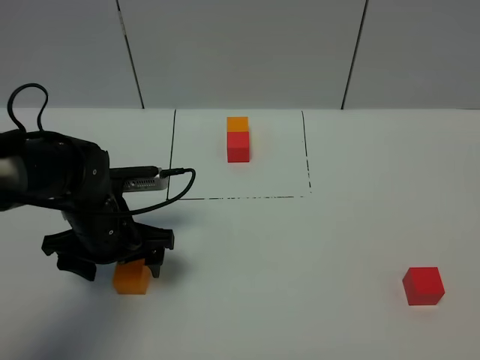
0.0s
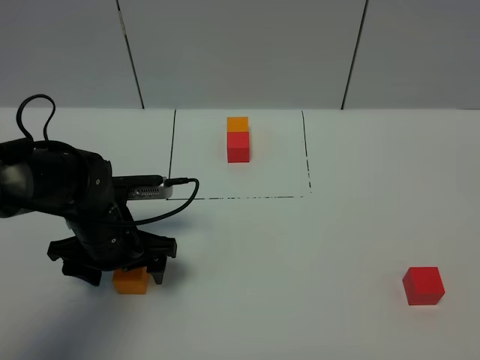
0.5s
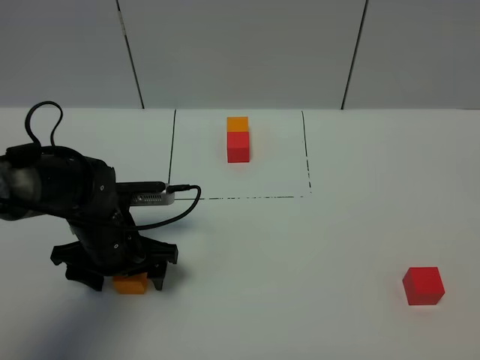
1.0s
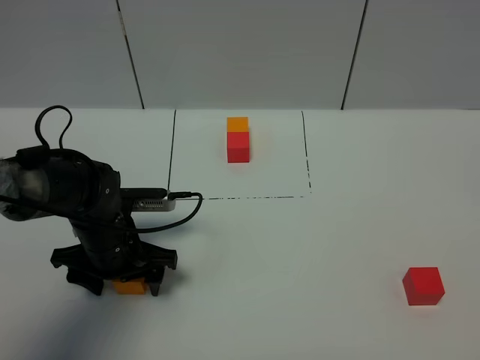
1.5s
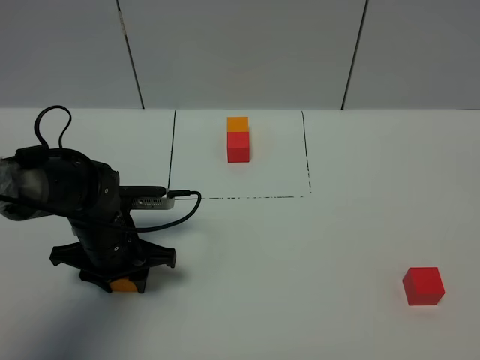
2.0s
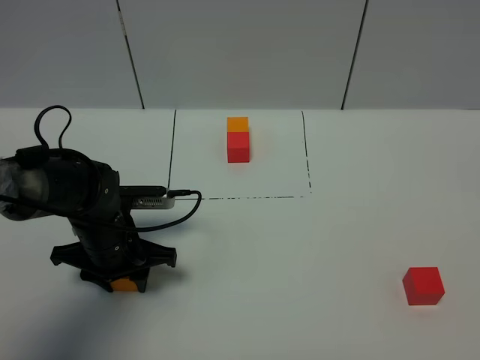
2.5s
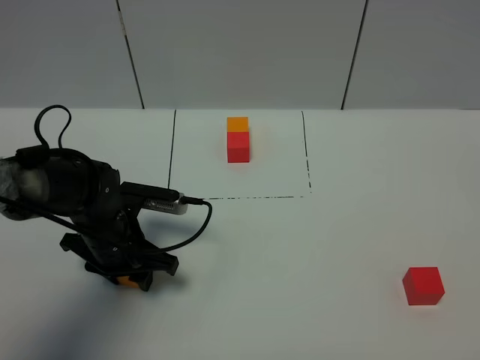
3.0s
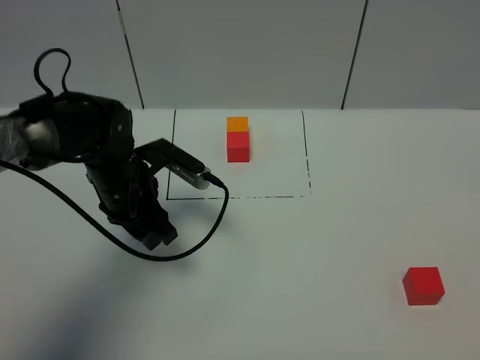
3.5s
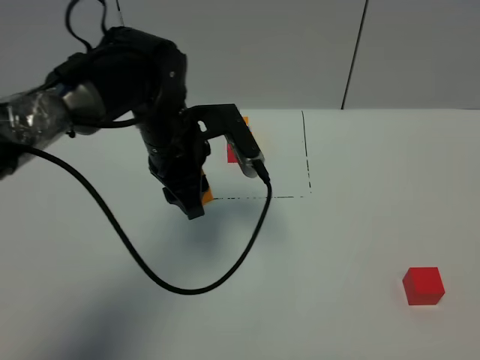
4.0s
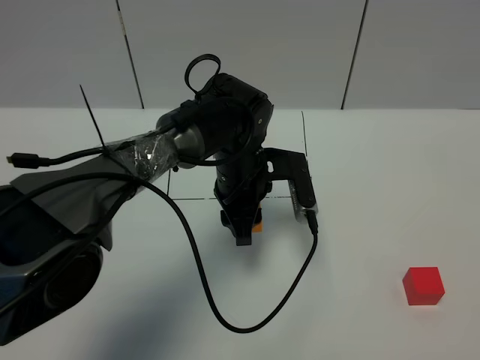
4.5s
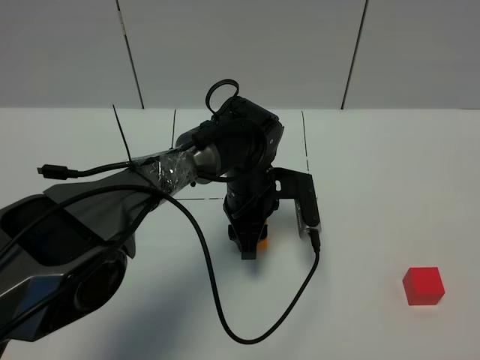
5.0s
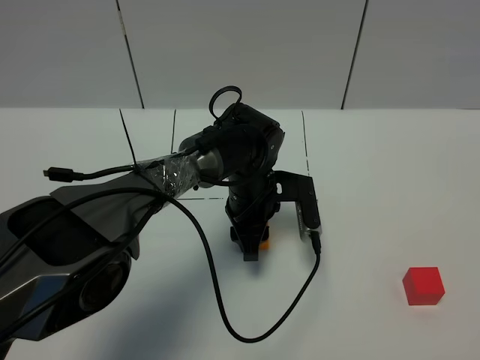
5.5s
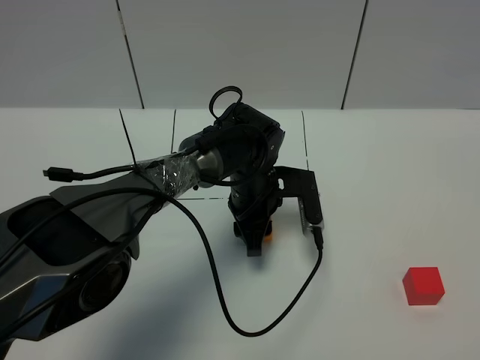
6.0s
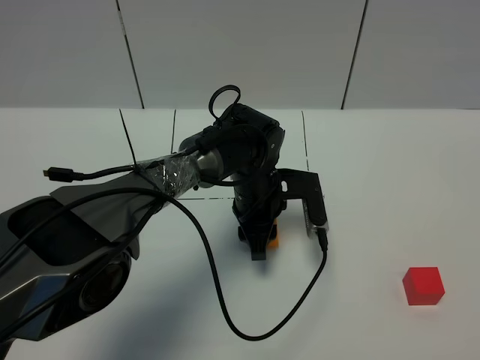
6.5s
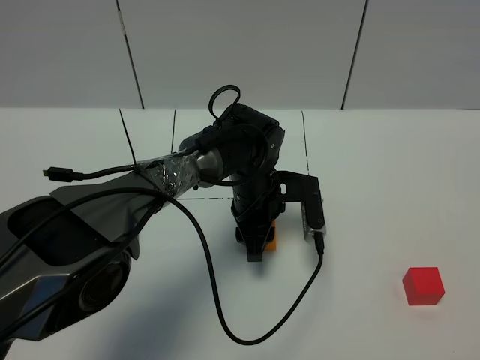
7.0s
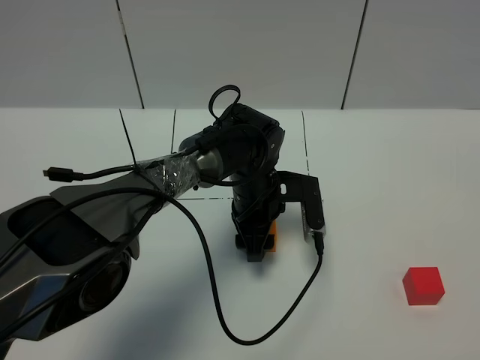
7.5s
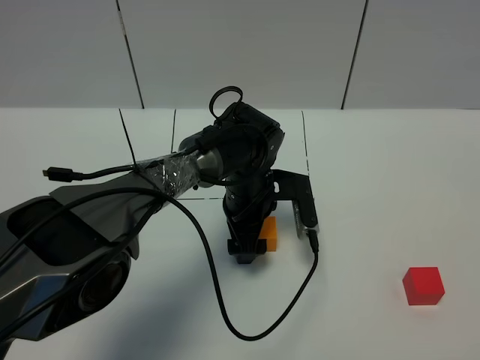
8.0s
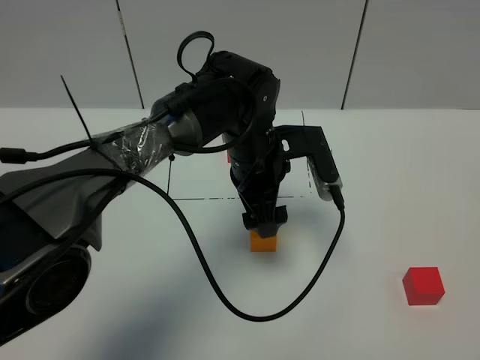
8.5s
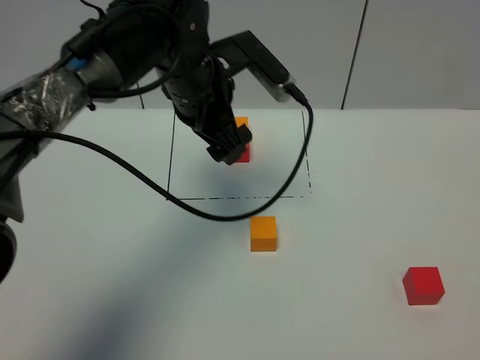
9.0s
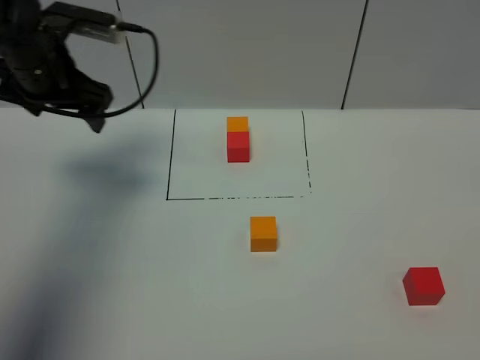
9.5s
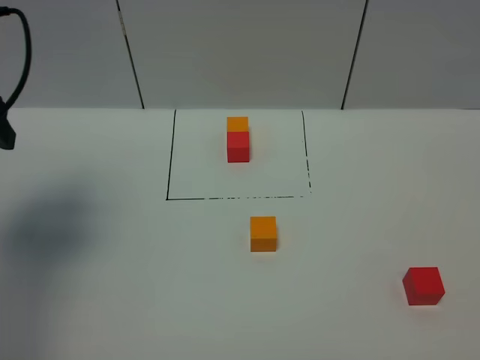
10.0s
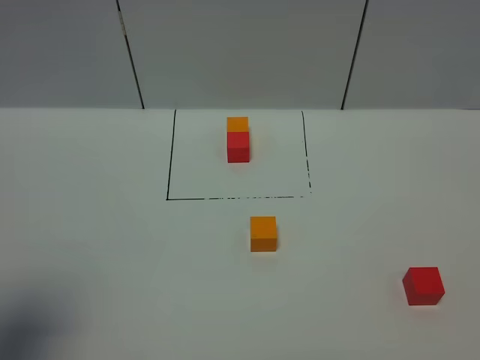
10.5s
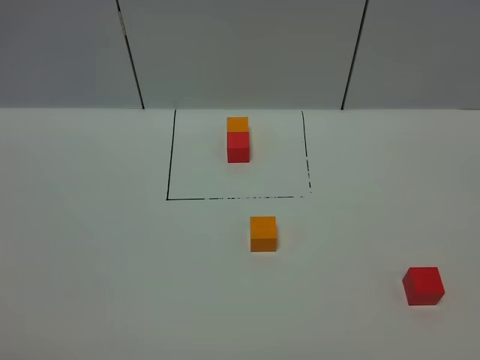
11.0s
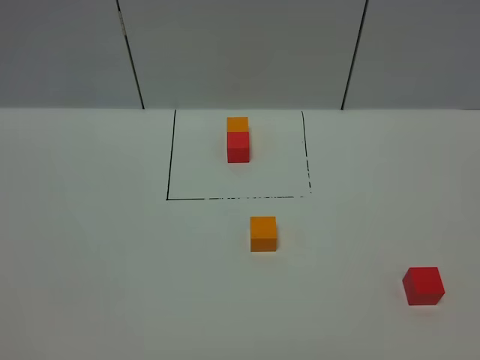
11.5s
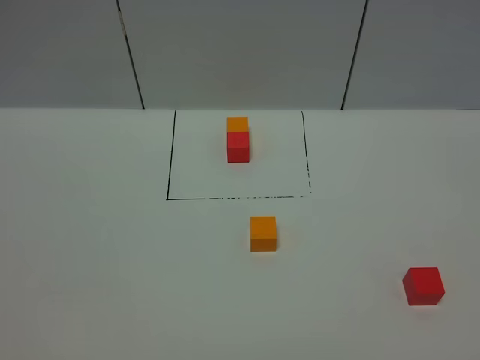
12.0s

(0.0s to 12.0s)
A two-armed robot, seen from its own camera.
Task of the whole recording: According to the building block template in front, assemble the scattered blocks together.
Step, 0.0s - 8.5s: Put the orange cube in the center of the table.
0.0s - 2.0s: The left gripper closes up.
2.0s - 4.0s: The left gripper goes about 15 cm upward, to the right and forward.
4.0s - 6.0s: The left gripper shifts some 15 cm downward and to the right.
6.0s - 8.0s: The left gripper opens up.
8.0s - 10.0s: The left gripper travels to the left and upward by roughly 40 cm.
10.0s - 12.0s: The left gripper shifts roughly 30 cm backward.

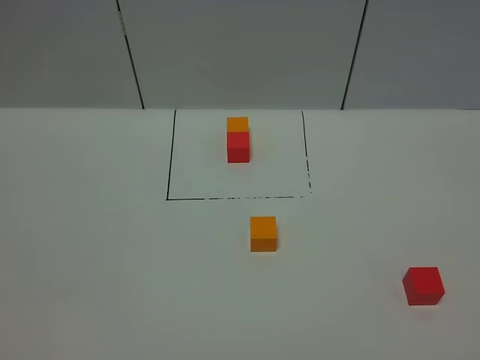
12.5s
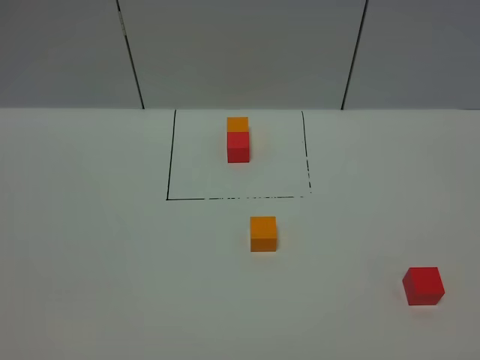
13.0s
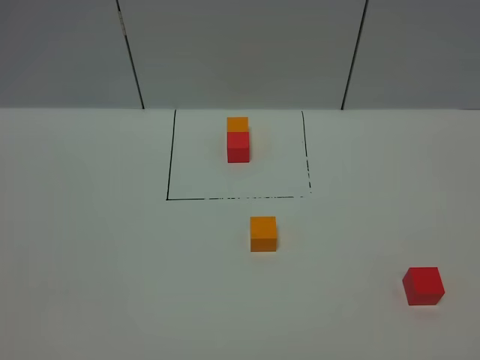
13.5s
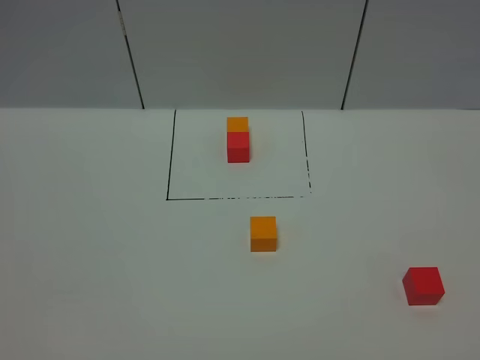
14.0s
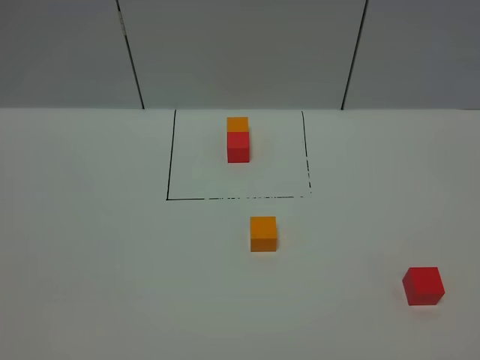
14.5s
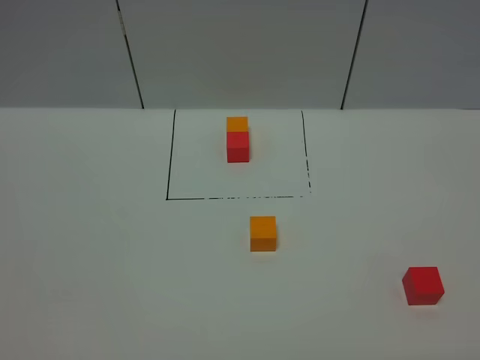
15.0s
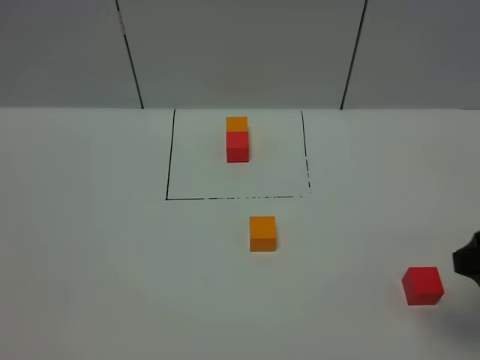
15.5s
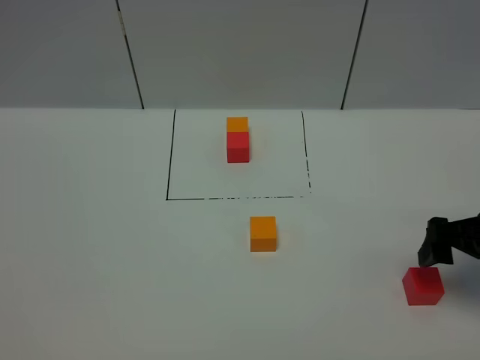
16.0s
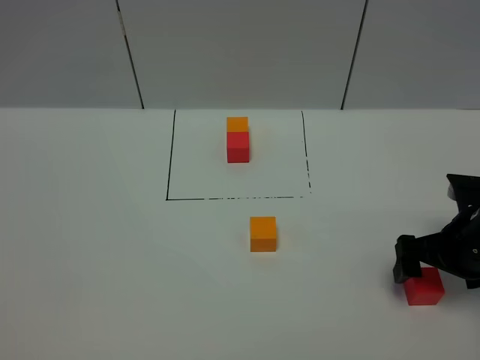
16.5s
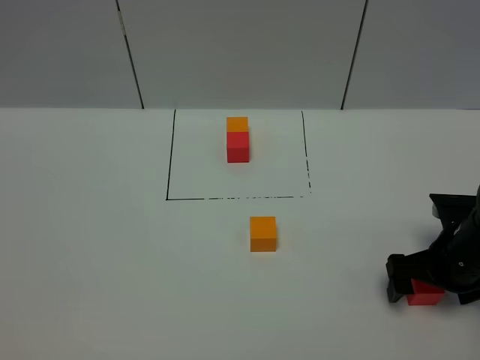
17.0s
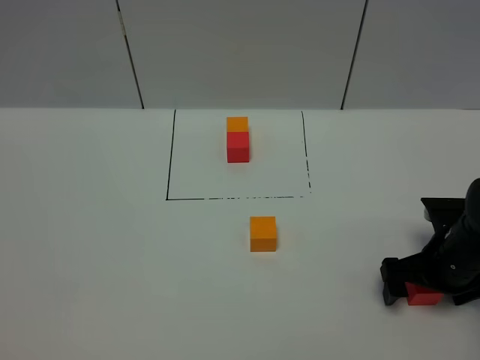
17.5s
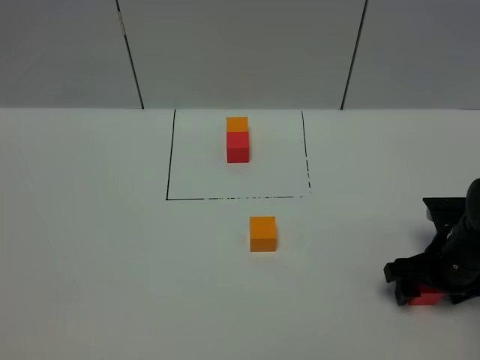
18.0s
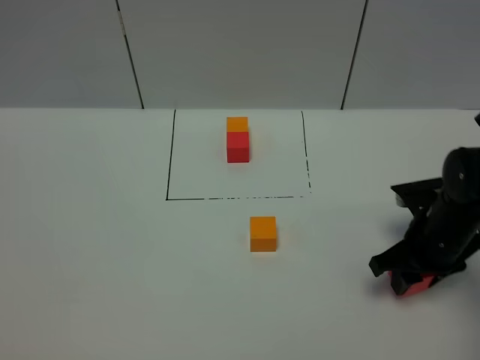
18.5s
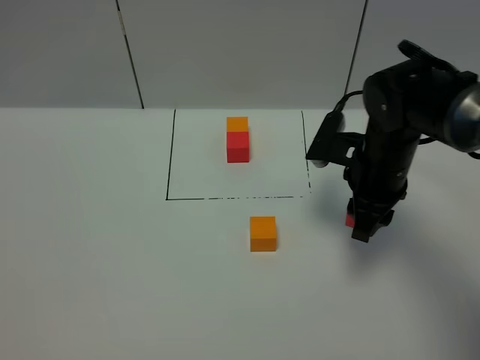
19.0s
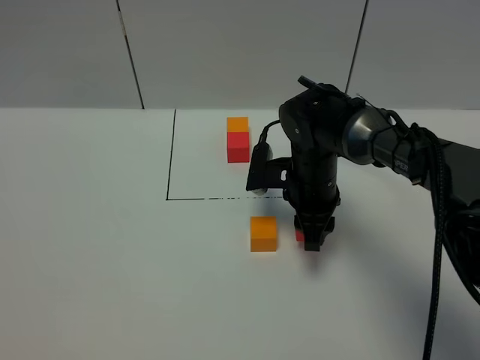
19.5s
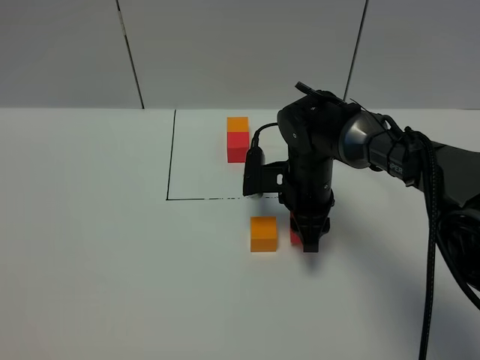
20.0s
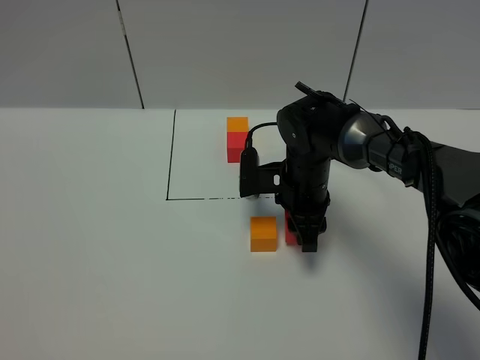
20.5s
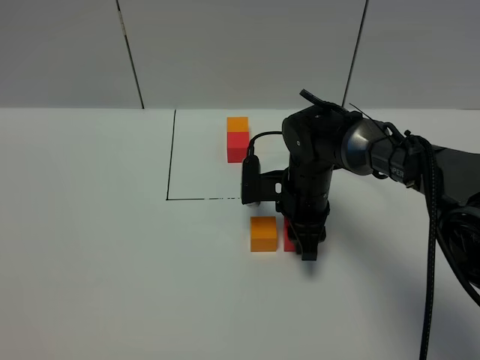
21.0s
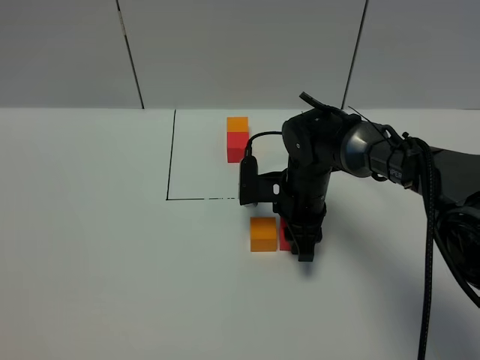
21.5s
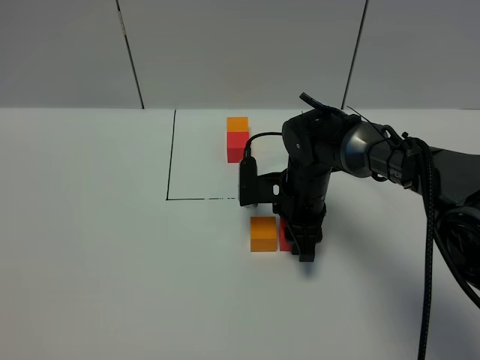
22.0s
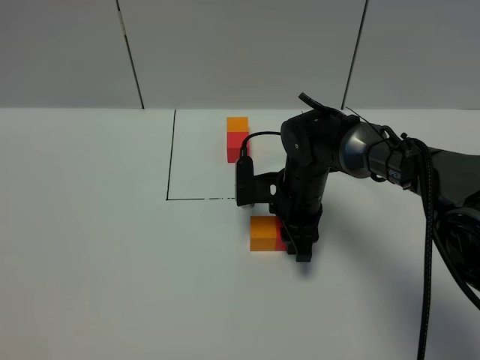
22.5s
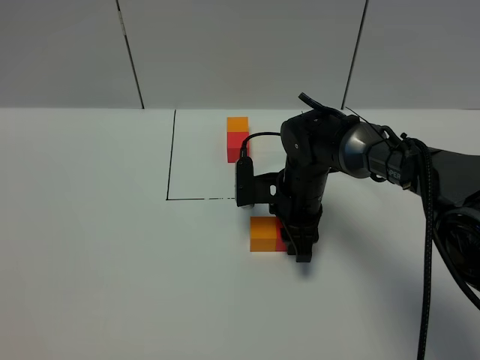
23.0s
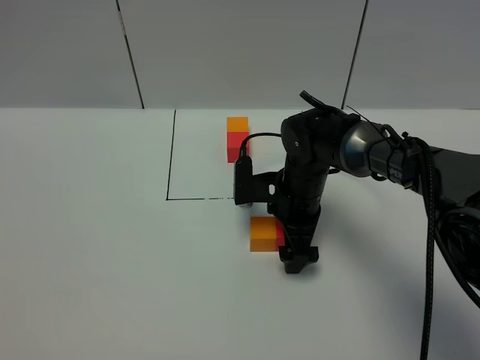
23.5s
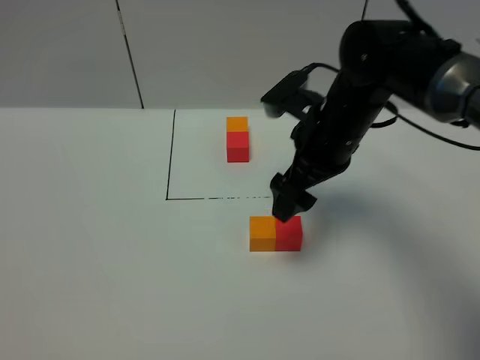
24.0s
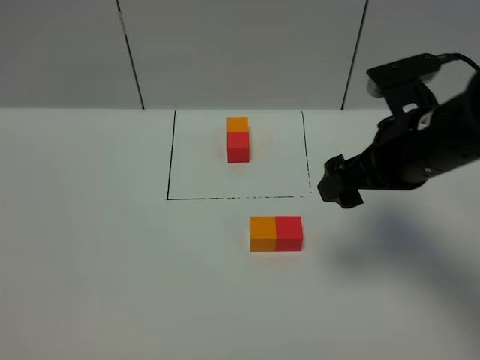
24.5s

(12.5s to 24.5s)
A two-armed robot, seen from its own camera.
Task of the whole recording: According to the building block template in front, assemble the scattered blocks together.
Step, 12.5s - 23.5s: Put the red cube on the right of the orange cube.
12.5s - 14.5s: The two grippers keep their place.
14.5s - 16.5s: The right gripper is displaced forward and downward by roughly 30 cm.
16.5s - 18.5s: The right gripper changes place by approximately 5 cm, and closes up.
18.5s - 20.5s: The right gripper travels to the left and forward by some 20 cm.
20.5s - 22.5s: The grippers move only a little.
22.5s - 24.5s: The right gripper shifts roughly 25 cm upward, to the right and backward, and opens its fingers.

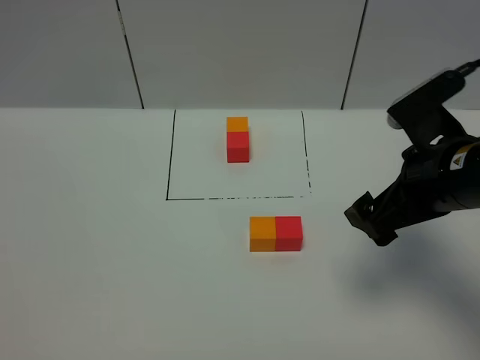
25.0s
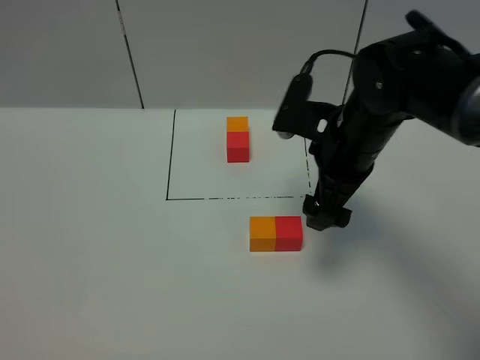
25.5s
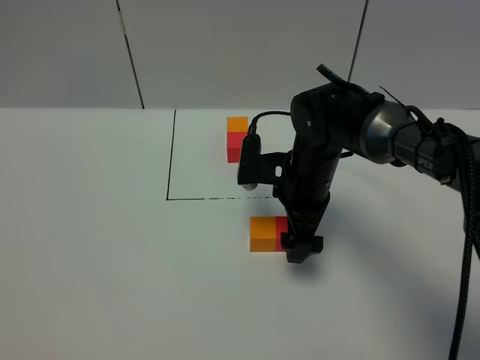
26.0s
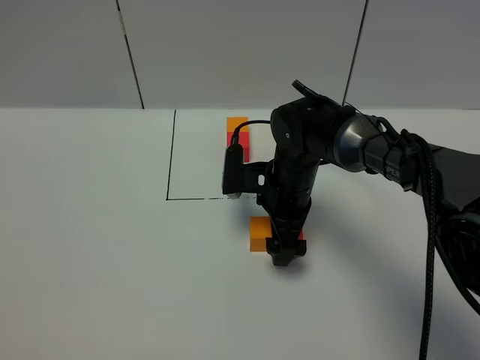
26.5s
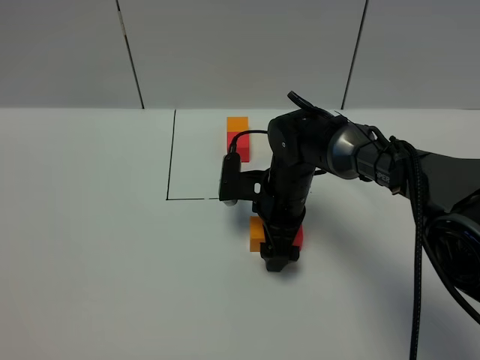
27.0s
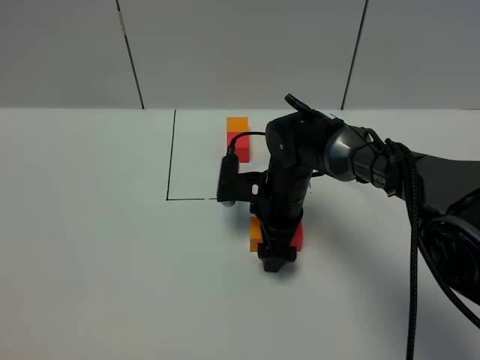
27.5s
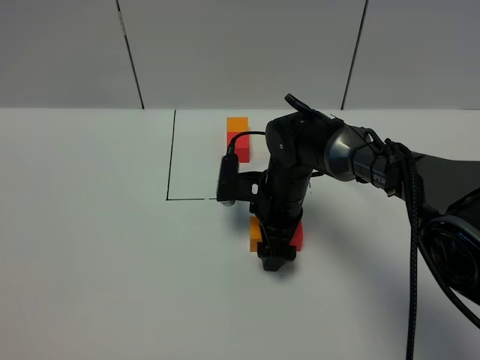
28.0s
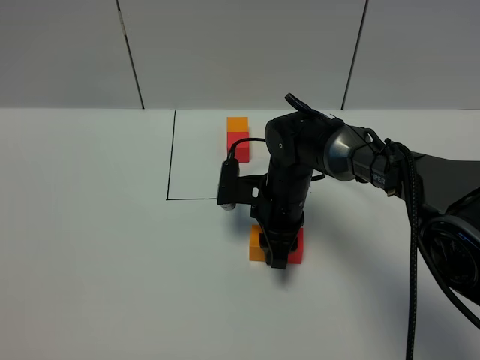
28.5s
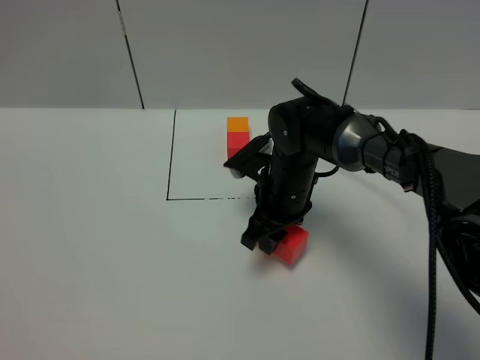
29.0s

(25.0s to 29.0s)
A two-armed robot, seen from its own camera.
Task of the whole recording: According to the building block template in front, assemble the scattered blocks together.
25.0s - 27.0s: The right gripper travels downward, to the left and forward by some 25 cm.
27.0s - 29.0s: The right gripper closes.
